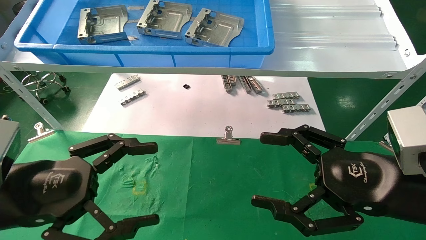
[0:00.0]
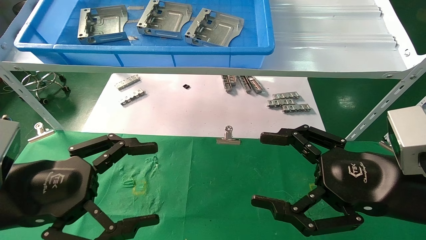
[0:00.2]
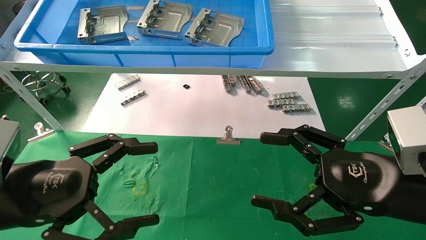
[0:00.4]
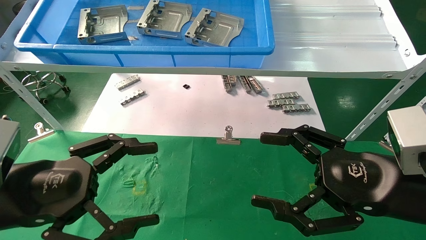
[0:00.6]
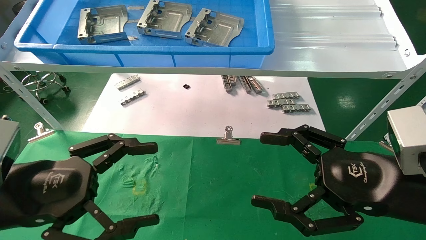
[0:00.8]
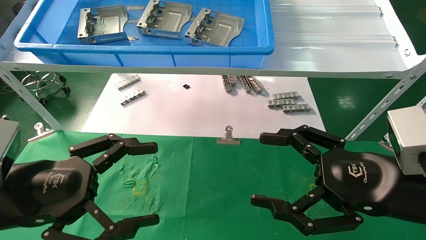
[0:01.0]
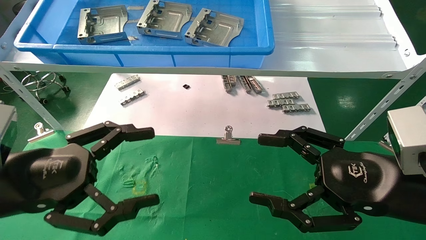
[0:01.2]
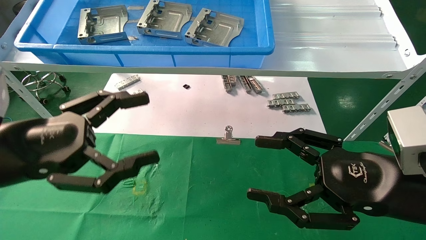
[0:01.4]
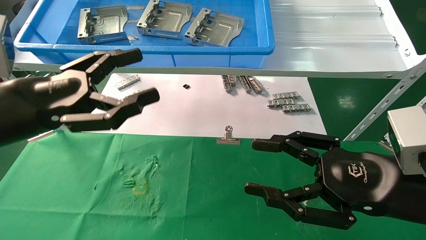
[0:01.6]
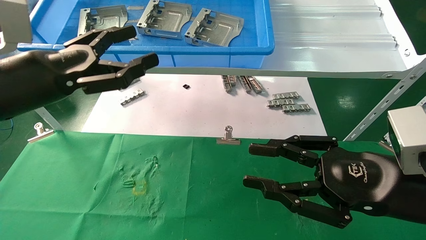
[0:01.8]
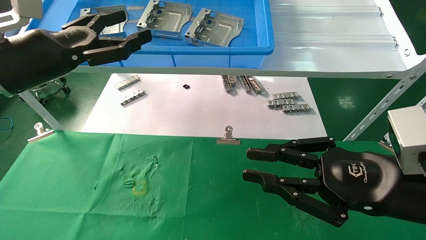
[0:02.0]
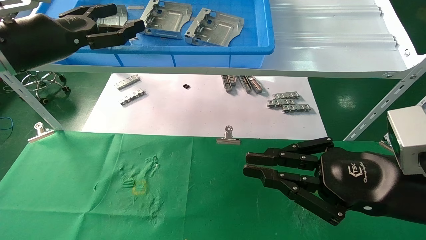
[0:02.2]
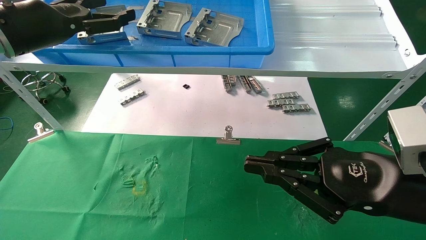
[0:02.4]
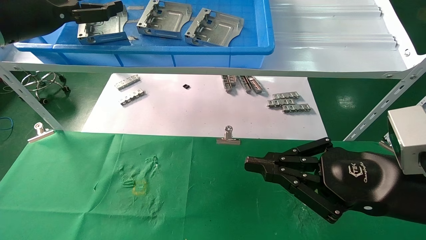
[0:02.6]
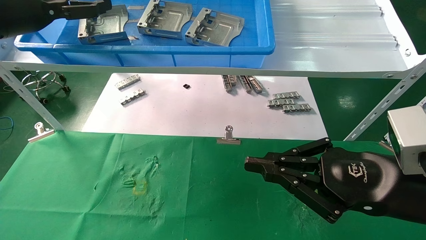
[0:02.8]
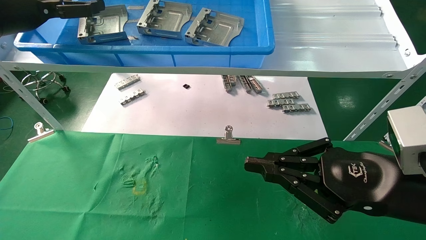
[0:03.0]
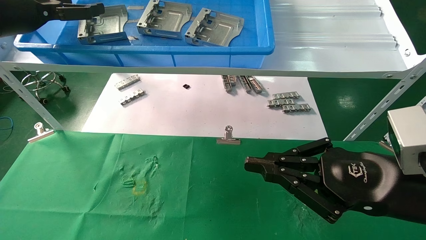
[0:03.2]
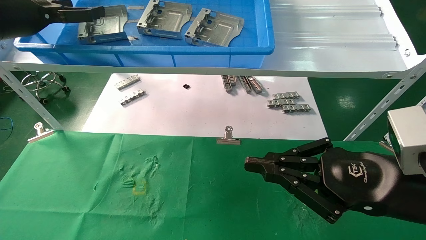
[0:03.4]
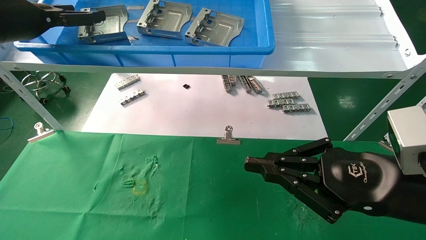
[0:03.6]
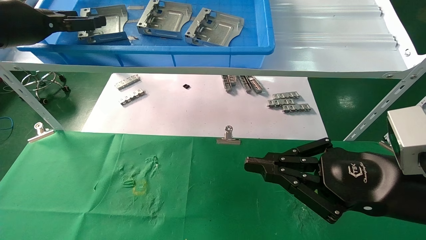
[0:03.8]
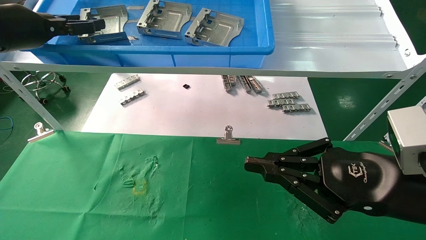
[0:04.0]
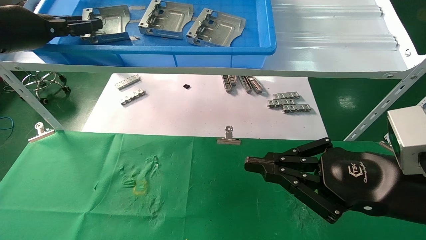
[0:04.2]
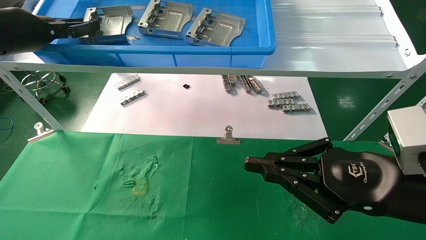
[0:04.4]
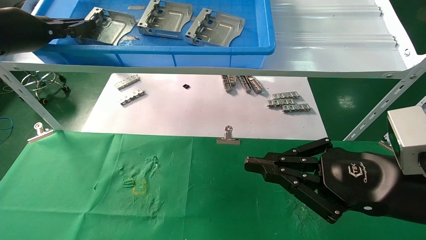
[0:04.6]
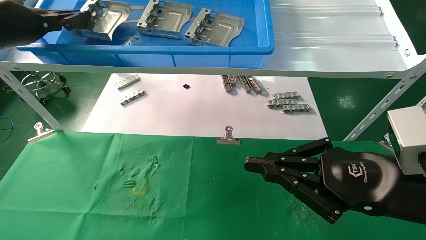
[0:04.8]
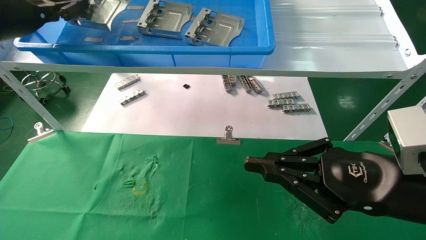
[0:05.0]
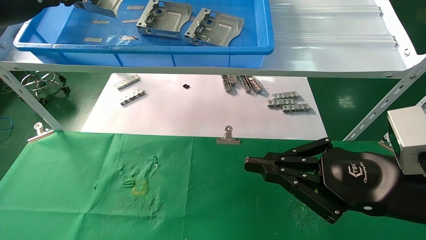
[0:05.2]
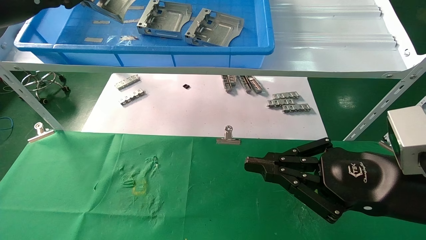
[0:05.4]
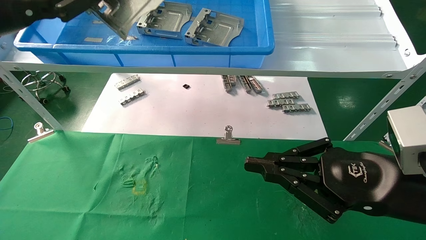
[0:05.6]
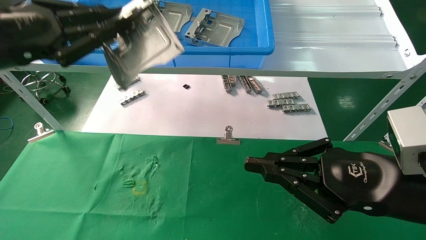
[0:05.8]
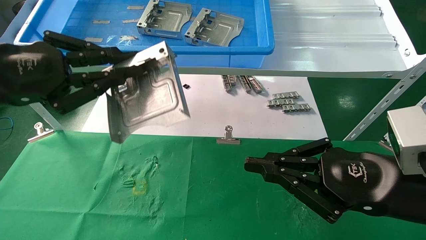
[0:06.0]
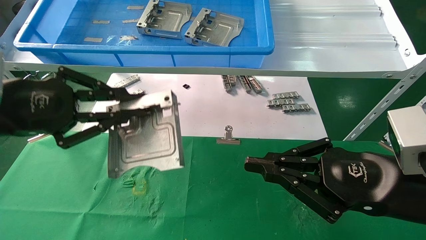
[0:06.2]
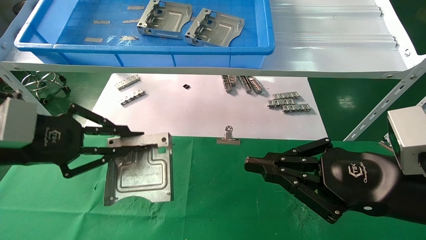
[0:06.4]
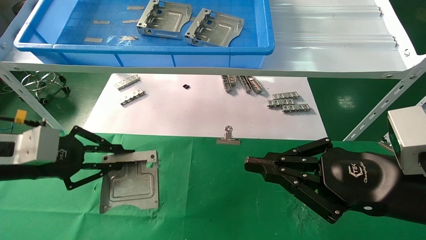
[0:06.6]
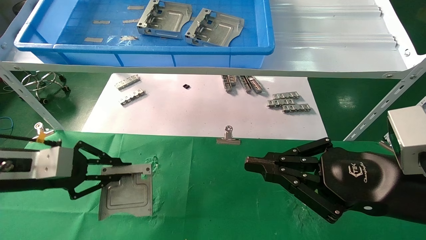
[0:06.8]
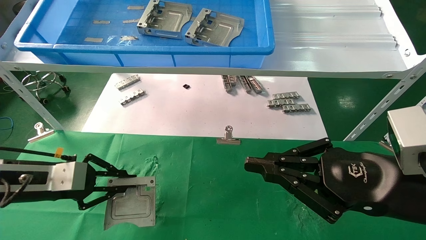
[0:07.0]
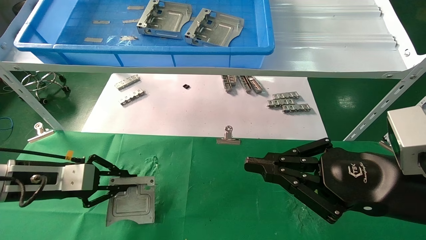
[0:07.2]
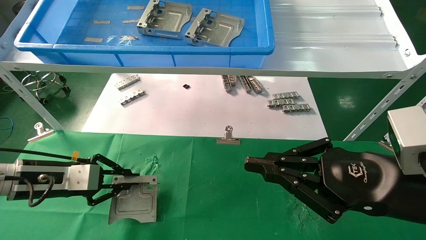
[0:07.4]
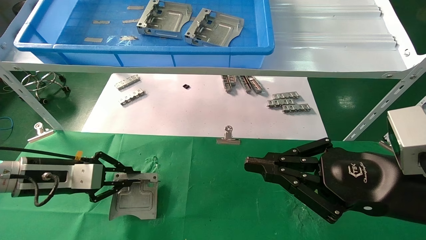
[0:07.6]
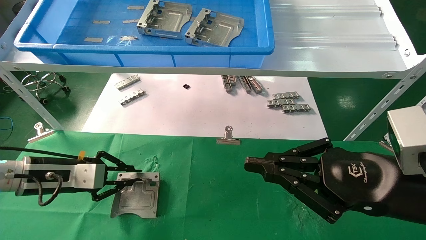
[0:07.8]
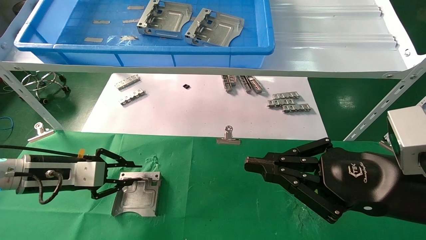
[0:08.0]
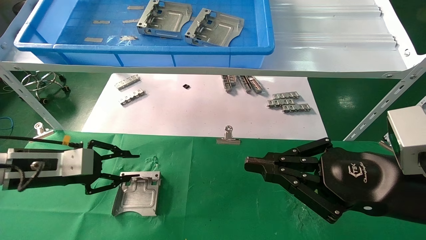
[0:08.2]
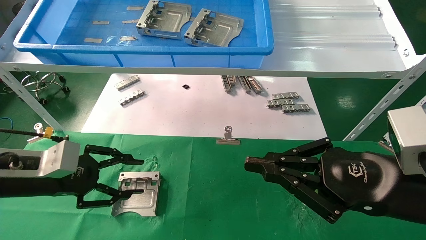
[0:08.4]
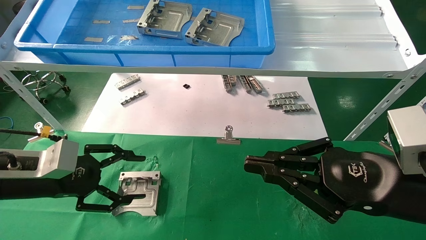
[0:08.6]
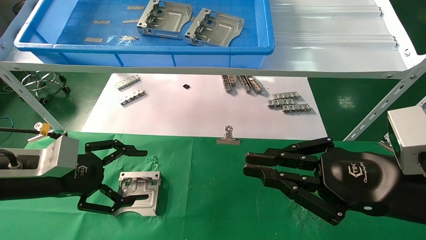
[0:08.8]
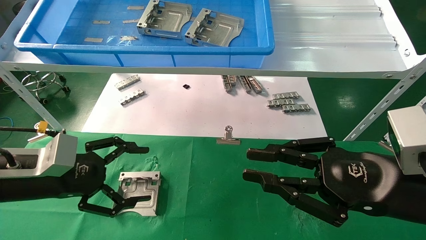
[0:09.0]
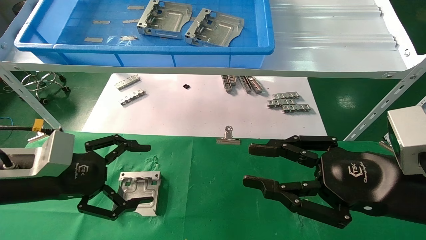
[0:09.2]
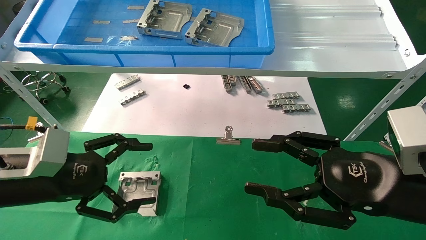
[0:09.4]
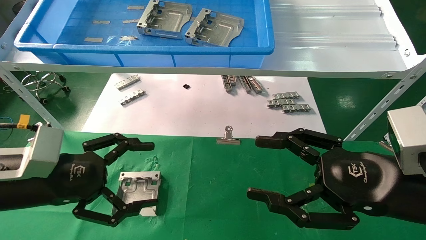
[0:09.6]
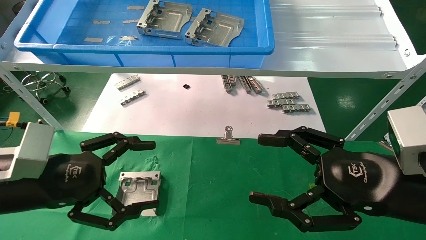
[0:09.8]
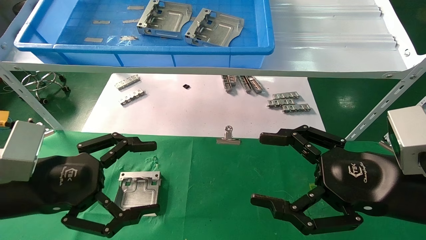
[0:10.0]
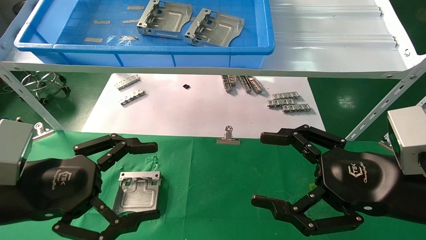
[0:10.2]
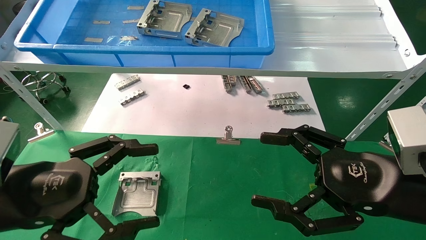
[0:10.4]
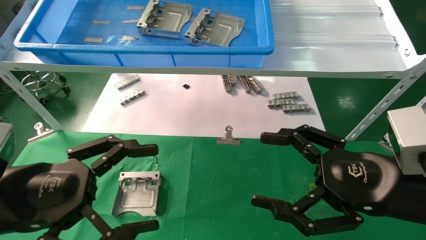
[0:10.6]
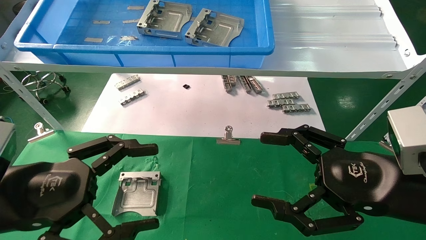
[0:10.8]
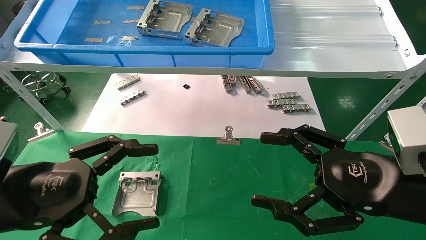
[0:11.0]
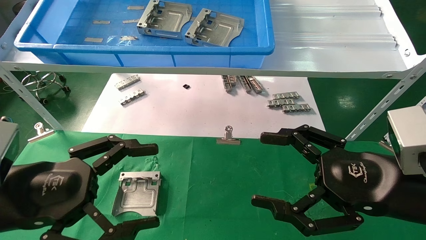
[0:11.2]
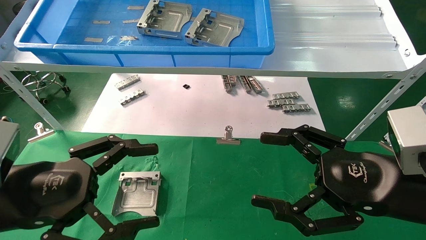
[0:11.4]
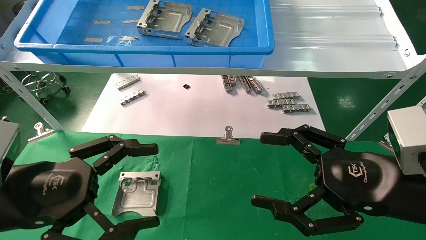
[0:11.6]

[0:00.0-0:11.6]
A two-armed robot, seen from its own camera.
Task of the whole recording: use the mechanical arm to pick up the parts and place them on the table.
Step, 0:01.6 to 0:04.6: Pick up the hard drive bracket from the feeding area.
Step, 0:04.8 to 0:08.0: Place the hard drive bracket into the box.
0:00.0 to 0:01.4: The left gripper changes place by some 5 cm.
0:01.4 to 0:02.8: The right gripper closes up. The left gripper is displaced upward, forward and to the left by some 25 cm.
0:02.8 to 0:04.4: The left gripper closes its fingers.
0:04.4 to 0:05.8: The left gripper goes roughly 10 cm backward.
0:05.8 to 0:07.2: The left gripper goes roughly 20 cm downward.
0:07.2 to 0:08.8: The left gripper shifts by about 5 cm, and opens up.
0:08.8 to 0:10.2: The left gripper shifts some 10 cm backward, while the right gripper opens its fingers.
0:10.2 to 0:11.6: There are only small adjustments of the grippers.

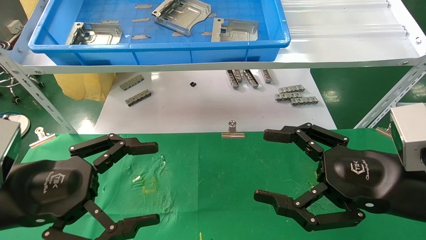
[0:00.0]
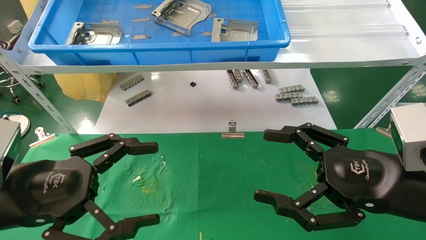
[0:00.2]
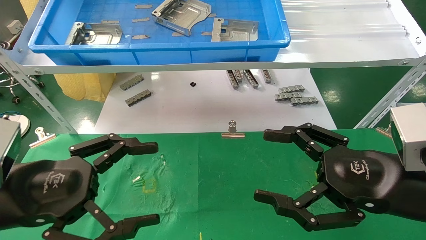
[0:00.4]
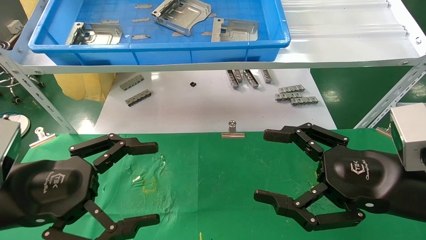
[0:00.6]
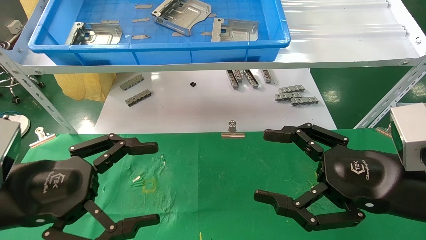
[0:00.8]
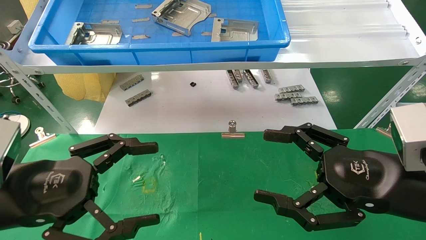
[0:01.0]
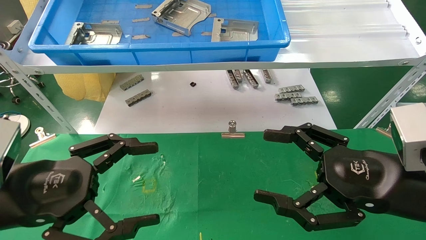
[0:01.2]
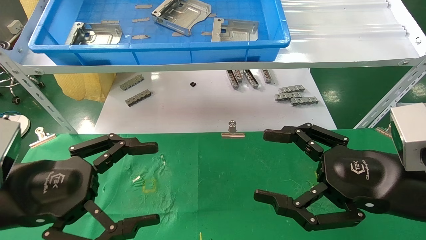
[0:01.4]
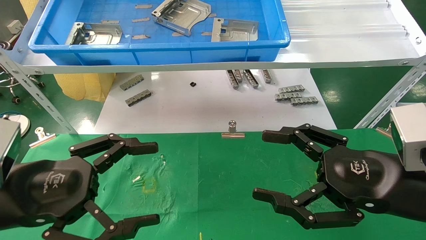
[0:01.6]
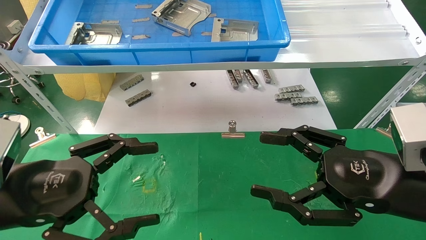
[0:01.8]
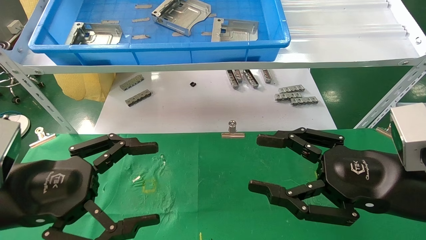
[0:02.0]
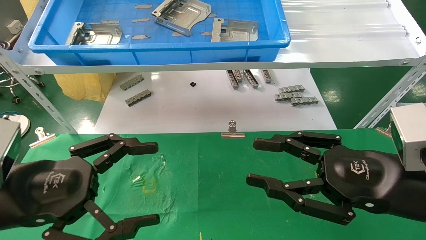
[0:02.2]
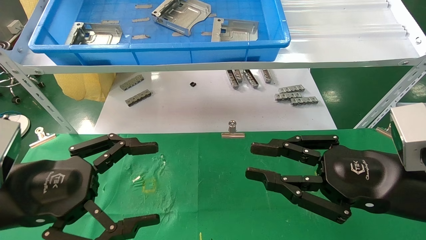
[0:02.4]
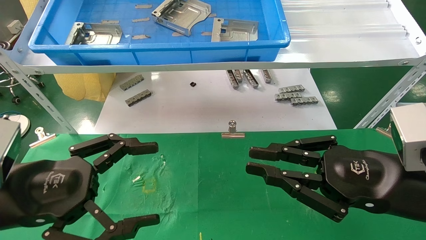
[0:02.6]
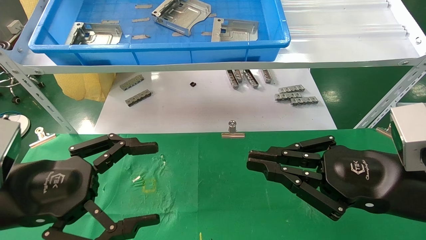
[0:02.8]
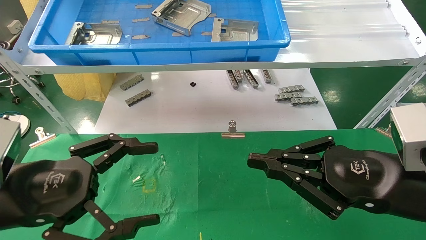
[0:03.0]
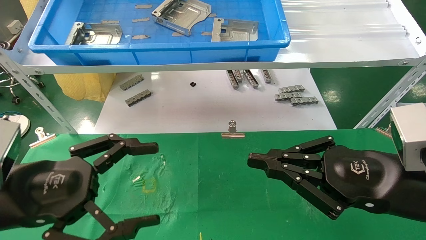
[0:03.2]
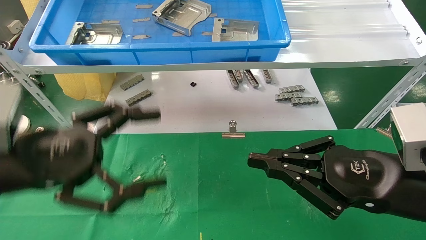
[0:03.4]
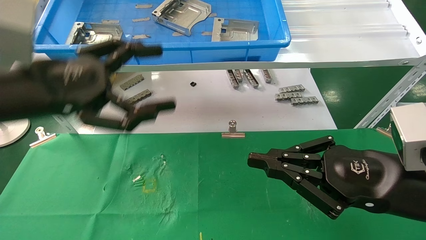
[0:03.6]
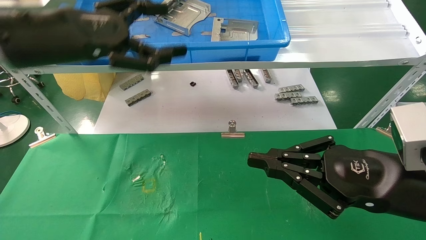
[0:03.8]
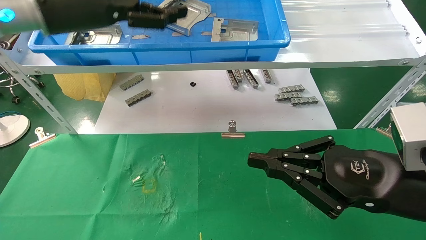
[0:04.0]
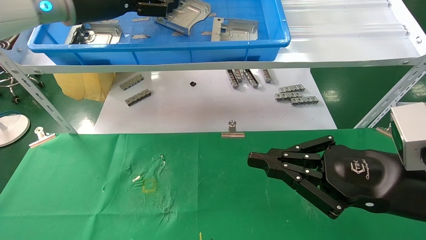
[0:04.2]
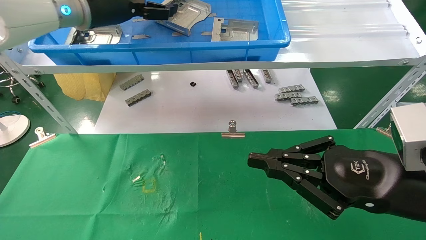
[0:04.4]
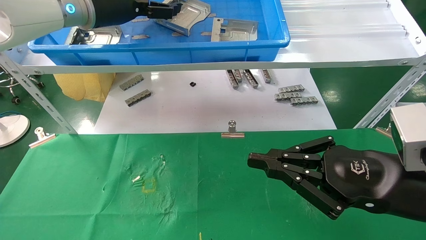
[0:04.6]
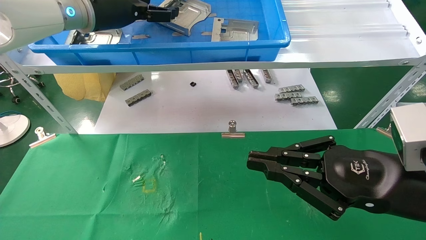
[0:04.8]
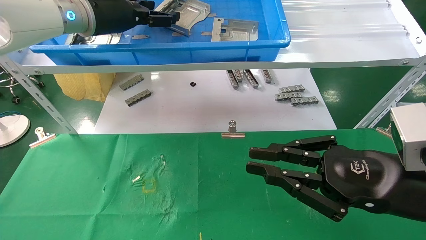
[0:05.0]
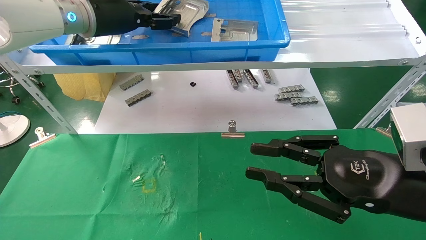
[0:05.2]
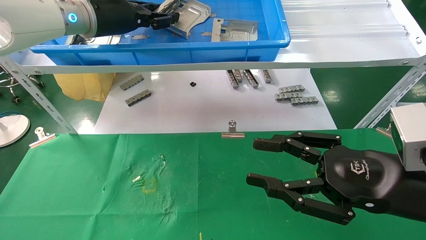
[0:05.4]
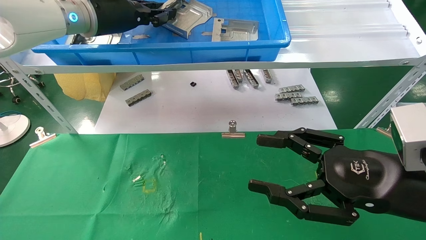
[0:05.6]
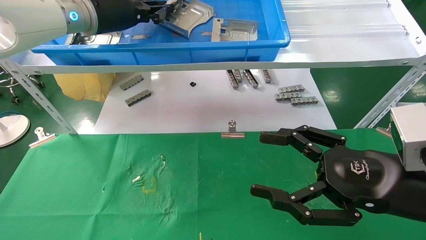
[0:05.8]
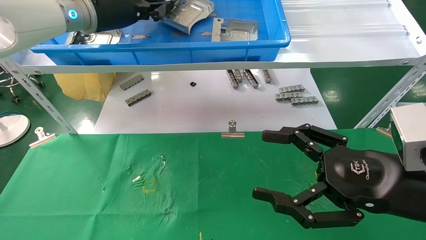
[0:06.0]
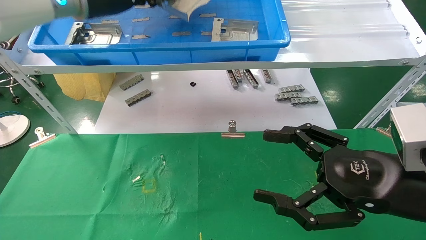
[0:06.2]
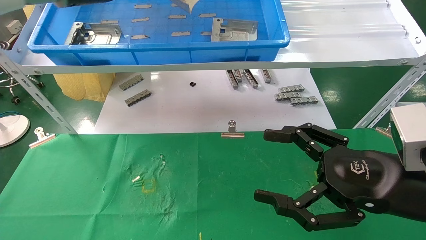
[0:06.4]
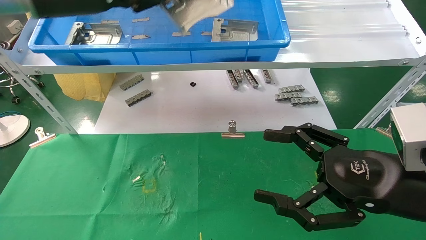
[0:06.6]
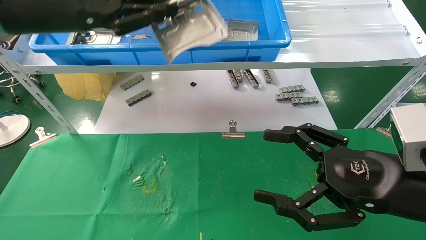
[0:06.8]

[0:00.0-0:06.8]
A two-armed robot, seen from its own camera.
Task of the whole recording: use the mechanical arm to pick up the parts and place them on the table.
Step, 0:01.8 to 0:06.6: Pick up the hard drive bracket from the feeding area.
0:00.0 to 0:01.4: Both grippers stay put.
0:01.4 to 0:02.8: The right gripper closes up.
0:02.8 to 0:04.0: The left gripper shifts about 25 cm upward and forward.
0:04.0 to 0:05.4: The left gripper shifts roughly 5 cm forward, and closes up; the right gripper opens its fingers.
0:05.4 to 0:06.8: The right gripper opens, while the left gripper heads backward and to the left, covering some 10 cm, and closes its fingers.
